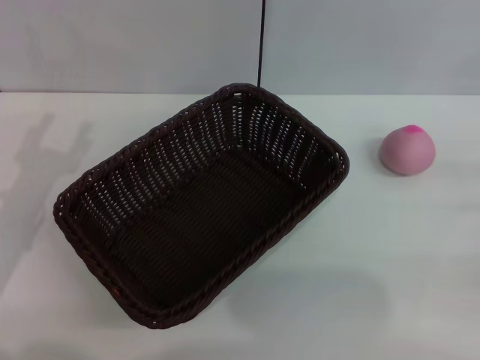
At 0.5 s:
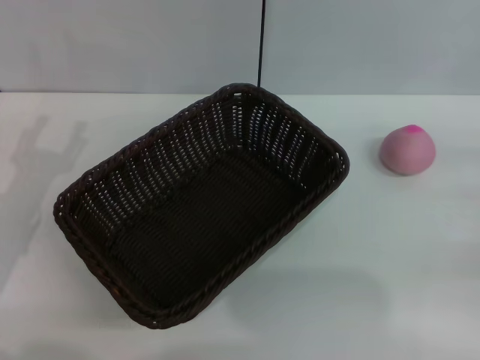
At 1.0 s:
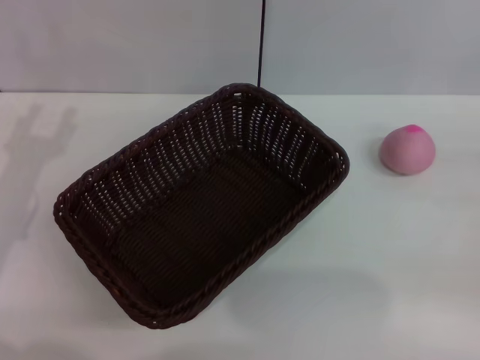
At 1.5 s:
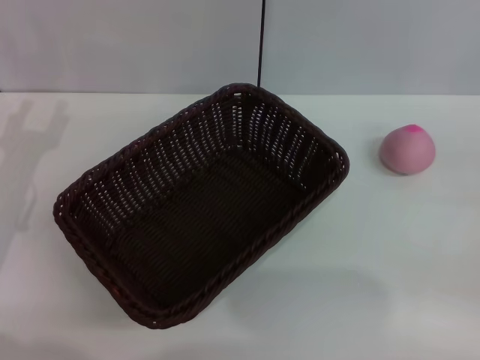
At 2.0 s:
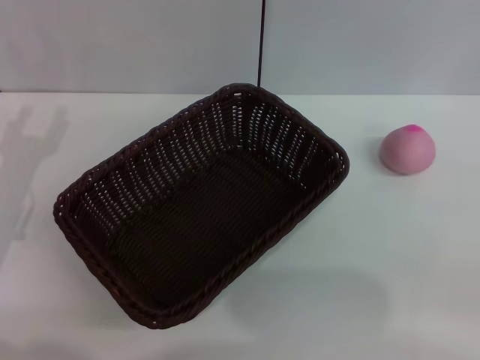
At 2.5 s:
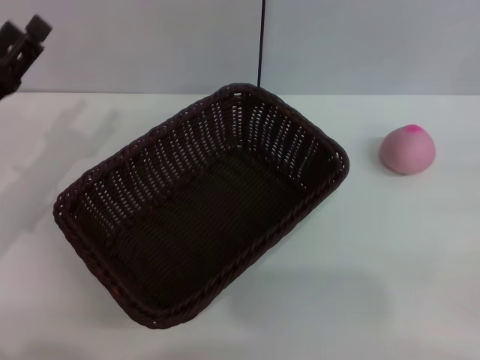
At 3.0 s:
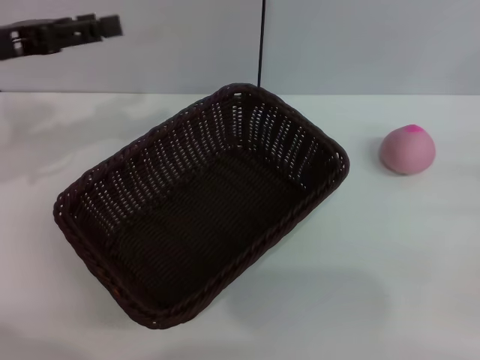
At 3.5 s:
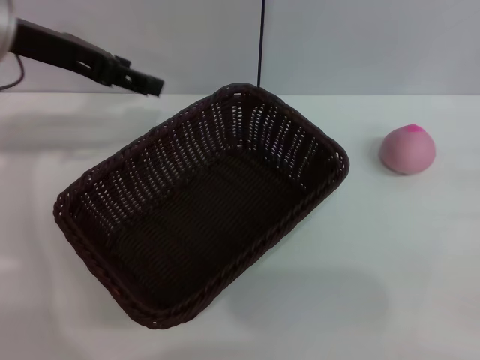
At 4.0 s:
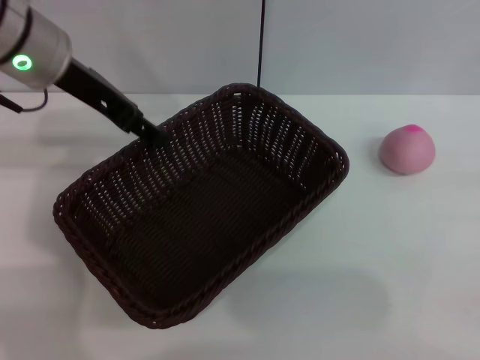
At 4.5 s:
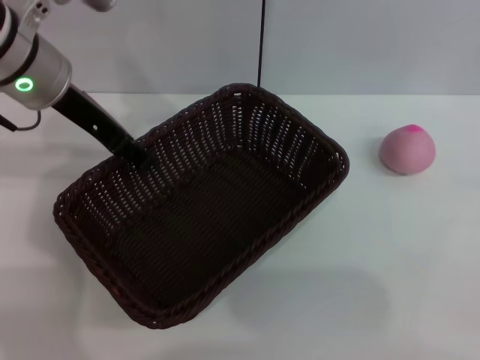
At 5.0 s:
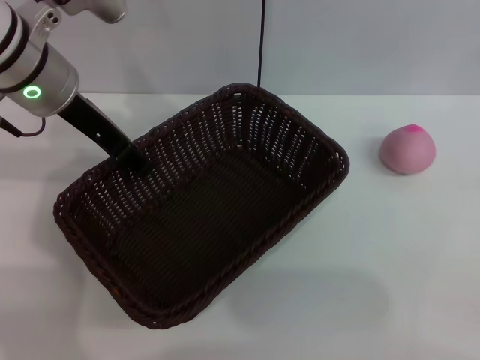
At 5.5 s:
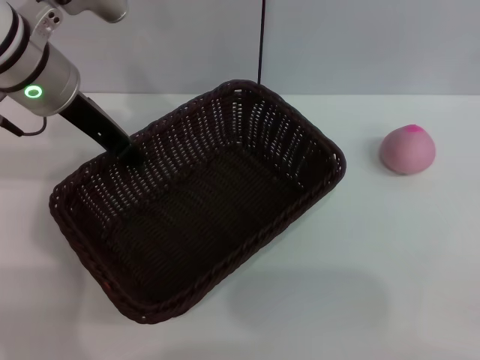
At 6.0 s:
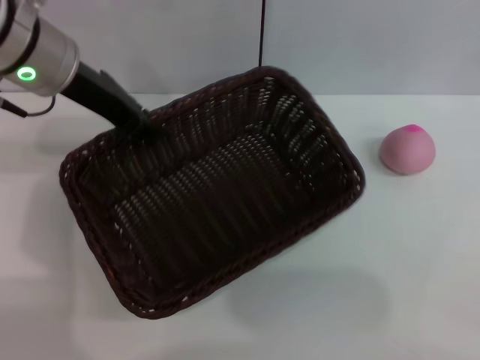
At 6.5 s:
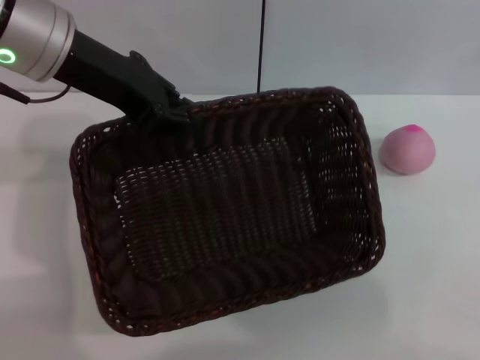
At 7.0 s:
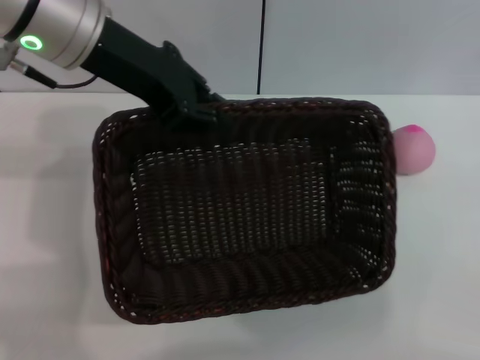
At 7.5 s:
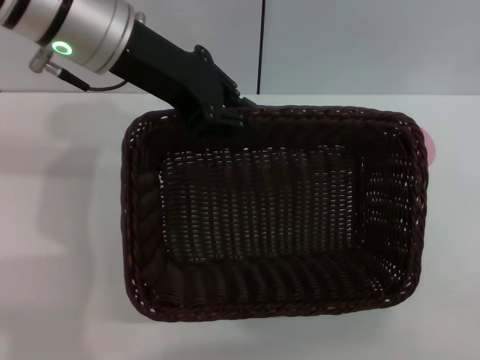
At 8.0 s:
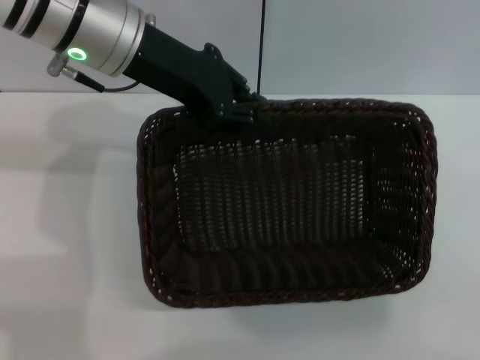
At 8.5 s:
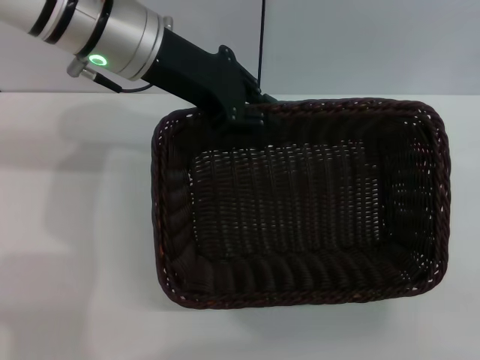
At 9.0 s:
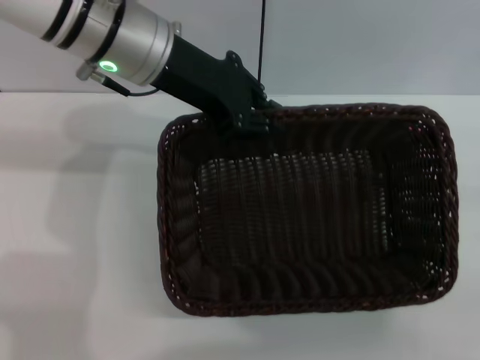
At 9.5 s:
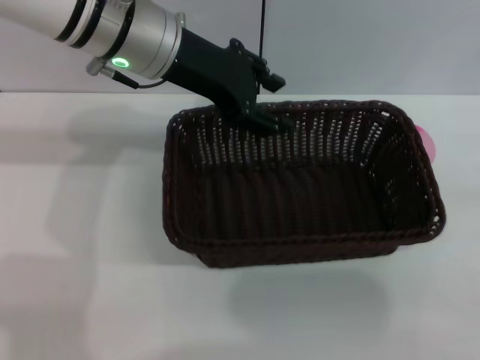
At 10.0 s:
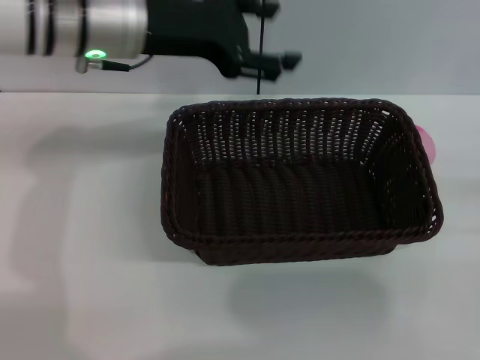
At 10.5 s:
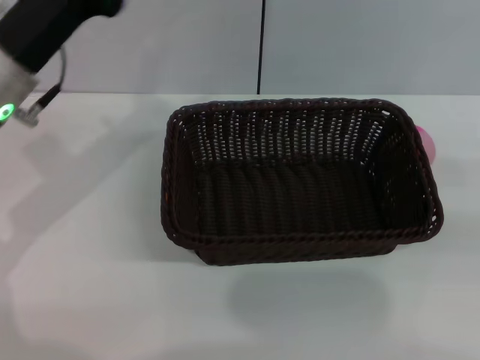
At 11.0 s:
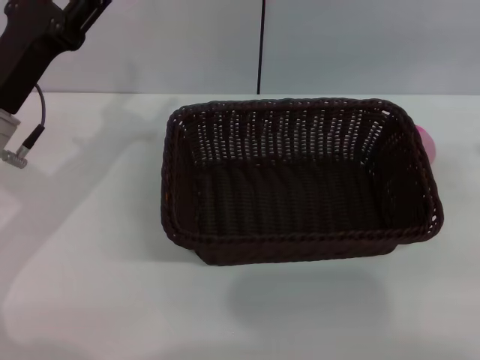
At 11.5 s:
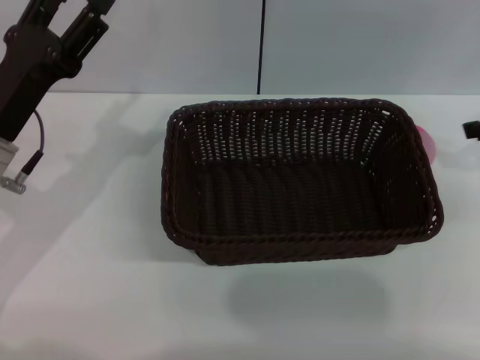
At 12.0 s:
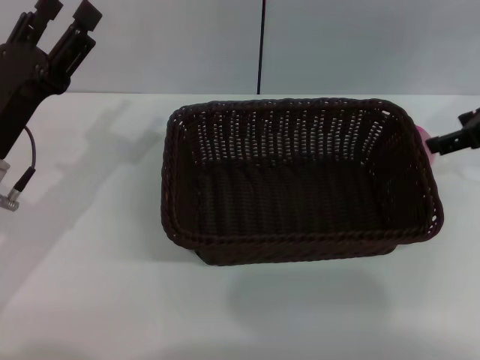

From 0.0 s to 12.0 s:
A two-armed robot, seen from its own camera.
Step, from 0.0 s to 5.5 s: Pick up the dark basket with the left gripper.
Step, from 6.5 s to 9.5 s: Place the dark basket in the center of view with the right gripper.
From 2.0 s to 4.0 s: The left gripper moves upward, forward and to the right, roughly 25 cm.
From 4.0 s to 6.0 s: The left gripper closes.
From 6.0 s to 8.0 s: The left gripper shifts by roughly 5 cm.
From 8.0 s to 10.0 s: The left gripper opens.
From 10.0 s to 12.0 s: The left gripper moves downward, backward and to the left, about 20 cm, while the right gripper moves forward, upward and to the left, roughly 20 cm.

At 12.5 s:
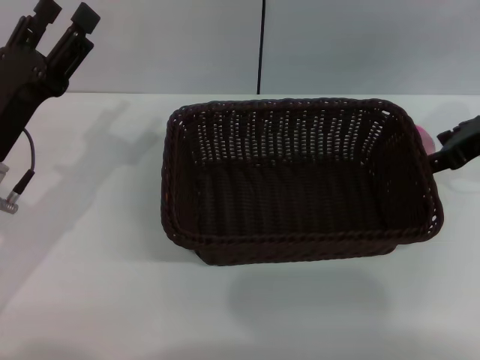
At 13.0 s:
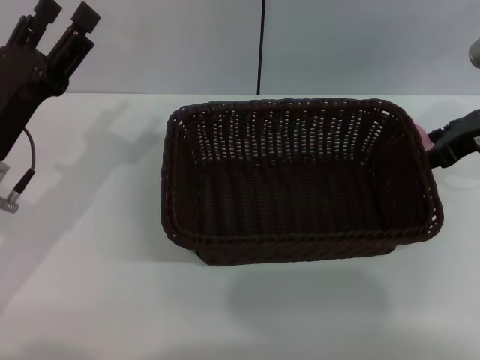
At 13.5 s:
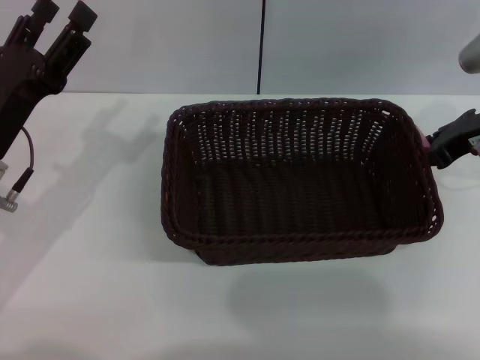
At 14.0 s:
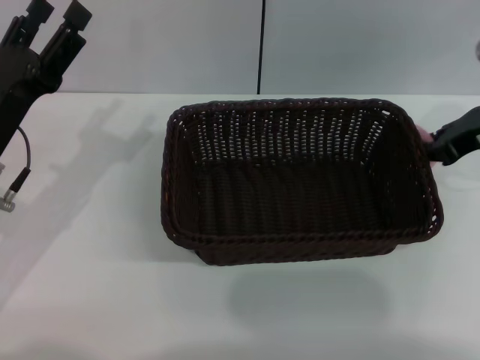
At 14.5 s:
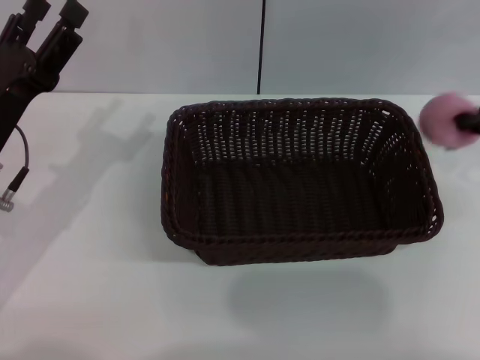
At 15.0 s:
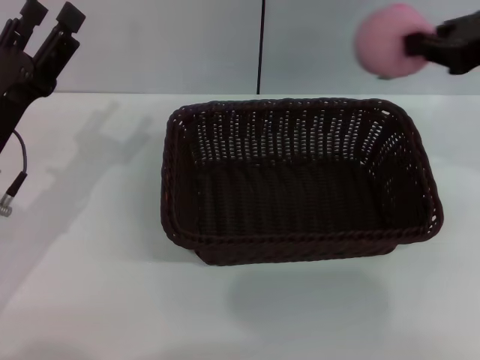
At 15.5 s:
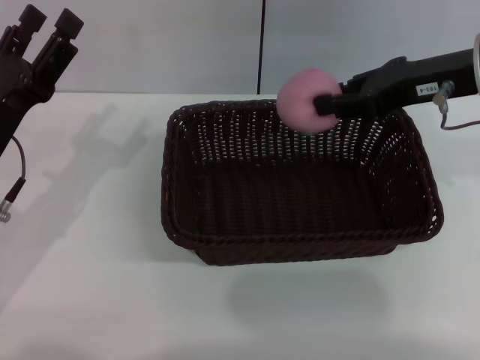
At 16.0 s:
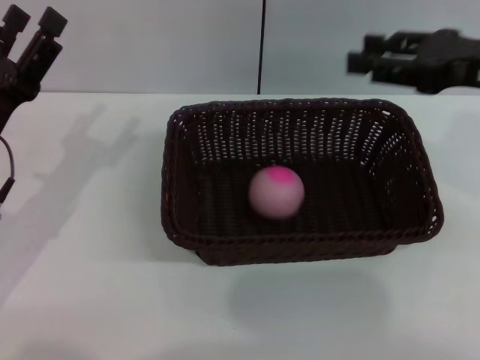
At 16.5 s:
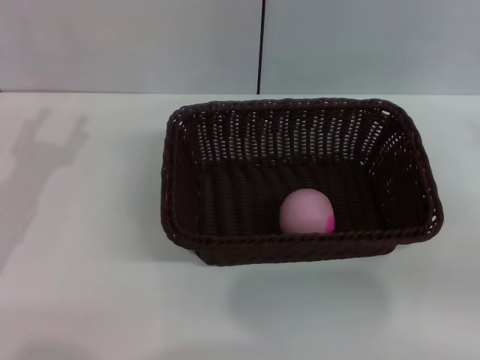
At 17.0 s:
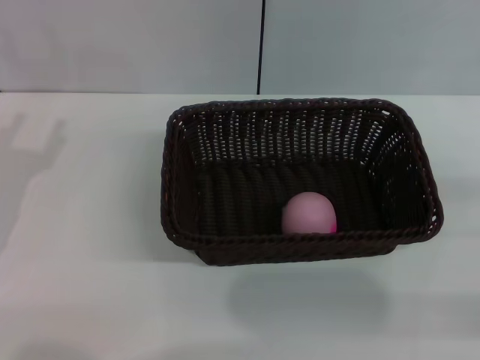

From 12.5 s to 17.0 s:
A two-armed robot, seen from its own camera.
From 12.5 s to 14.5 s: The right gripper closes.
From 14.5 s to 17.0 s: The right gripper shifts roughly 20 cm backward, downward and to the right, and opens up; the left gripper goes some 5 cm to the left.
